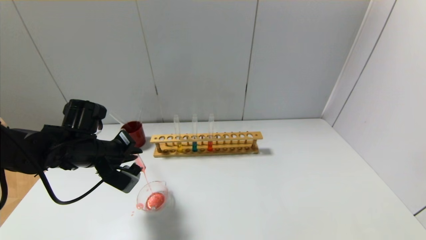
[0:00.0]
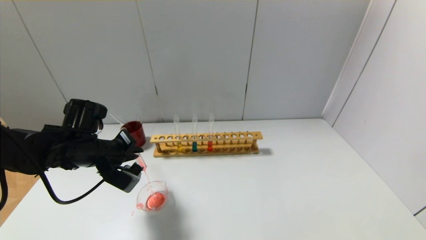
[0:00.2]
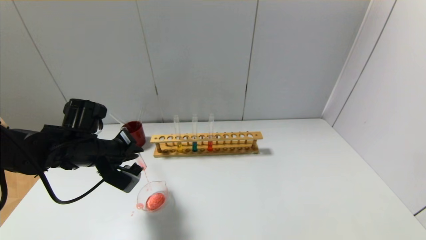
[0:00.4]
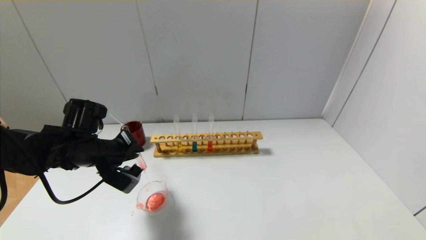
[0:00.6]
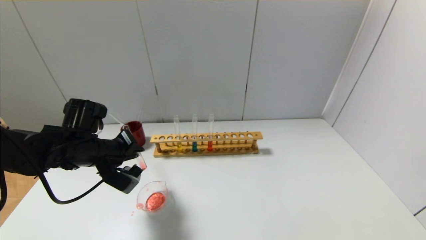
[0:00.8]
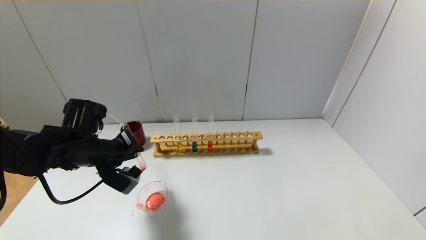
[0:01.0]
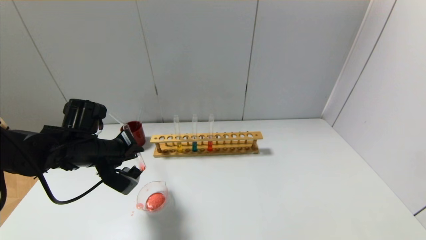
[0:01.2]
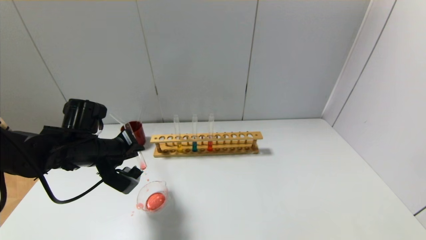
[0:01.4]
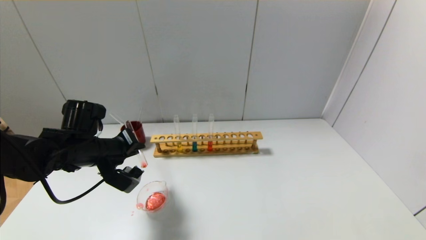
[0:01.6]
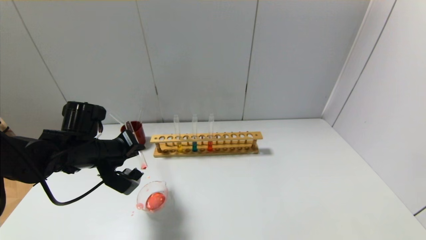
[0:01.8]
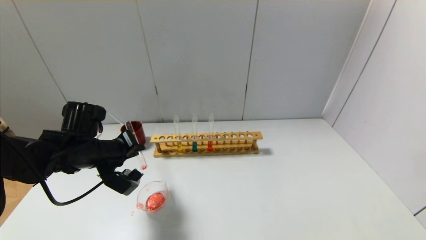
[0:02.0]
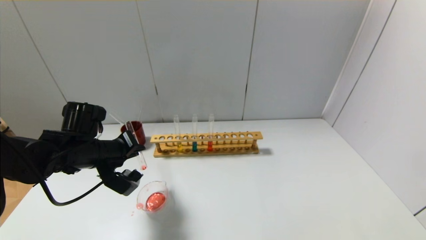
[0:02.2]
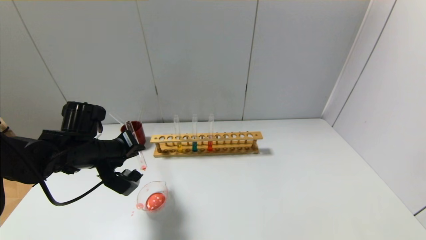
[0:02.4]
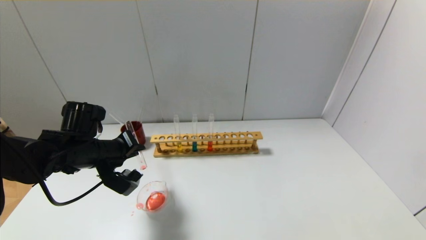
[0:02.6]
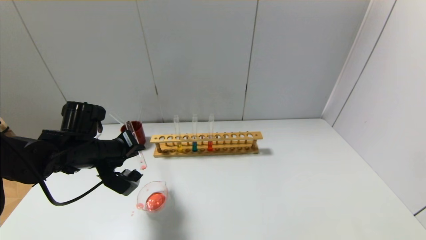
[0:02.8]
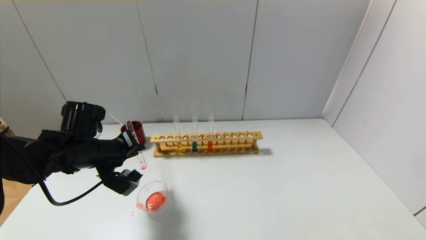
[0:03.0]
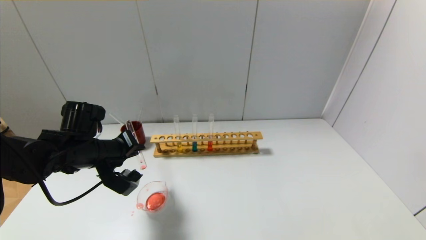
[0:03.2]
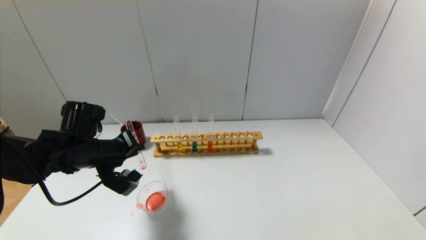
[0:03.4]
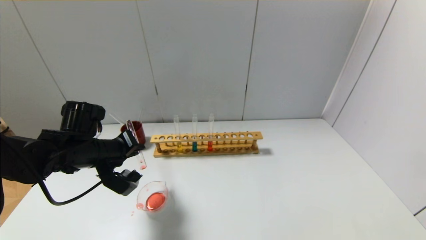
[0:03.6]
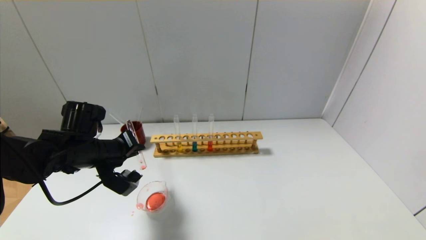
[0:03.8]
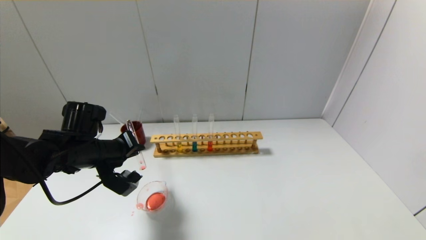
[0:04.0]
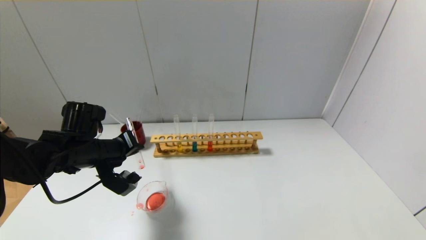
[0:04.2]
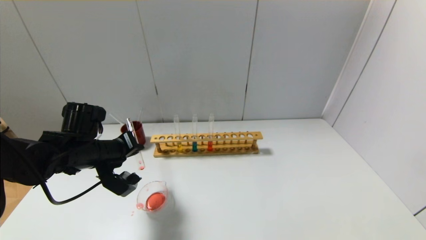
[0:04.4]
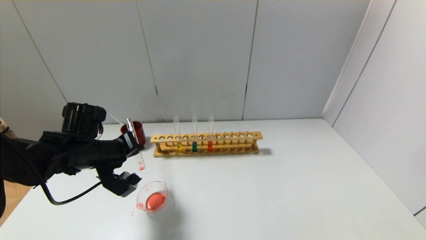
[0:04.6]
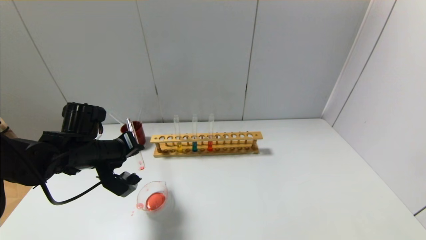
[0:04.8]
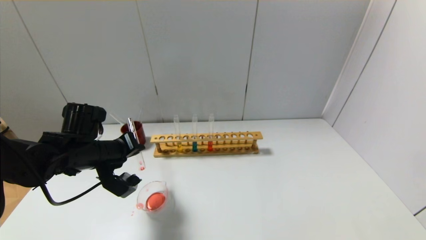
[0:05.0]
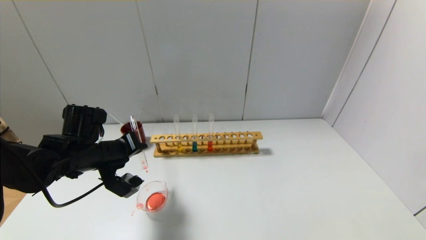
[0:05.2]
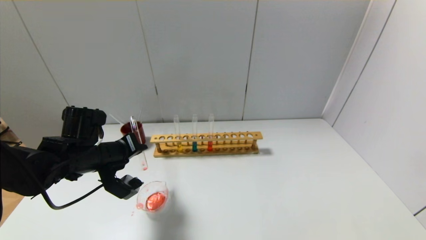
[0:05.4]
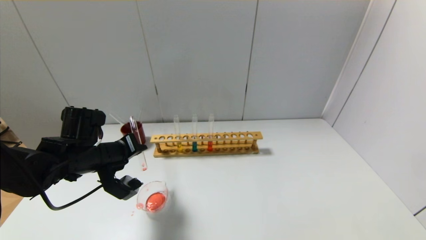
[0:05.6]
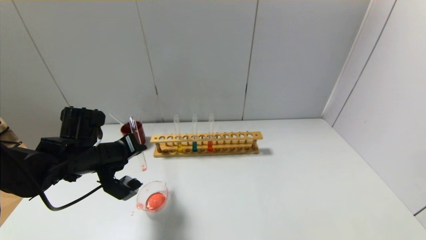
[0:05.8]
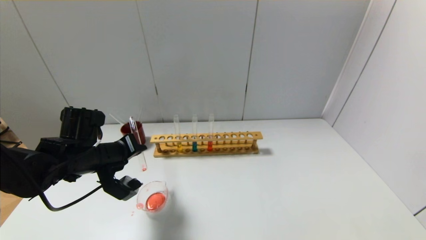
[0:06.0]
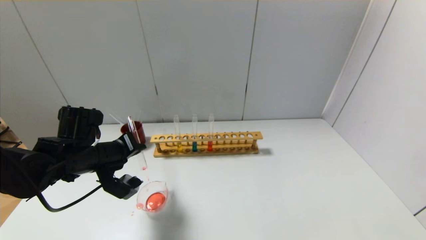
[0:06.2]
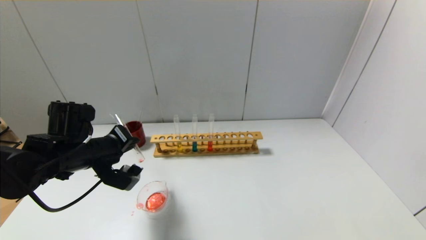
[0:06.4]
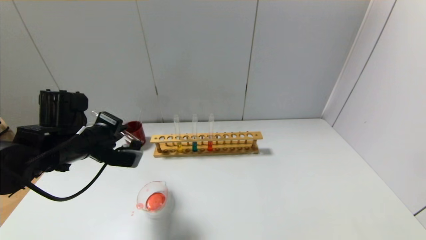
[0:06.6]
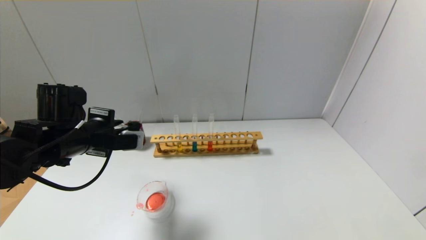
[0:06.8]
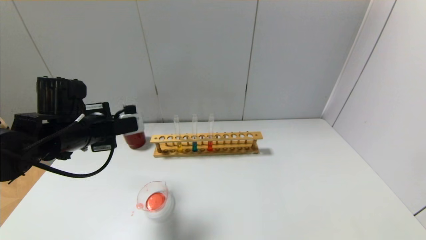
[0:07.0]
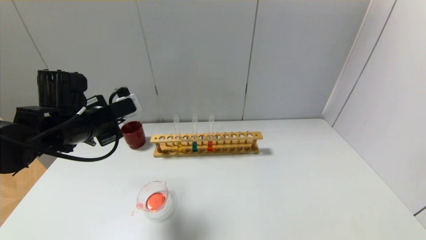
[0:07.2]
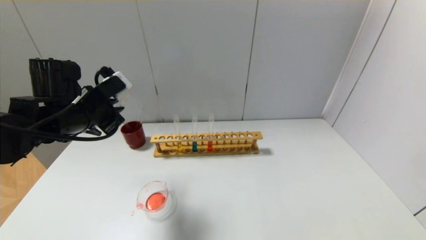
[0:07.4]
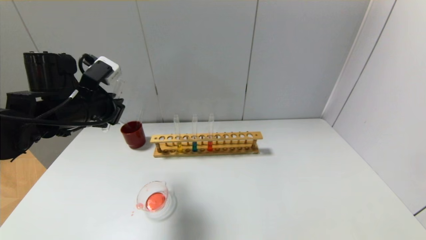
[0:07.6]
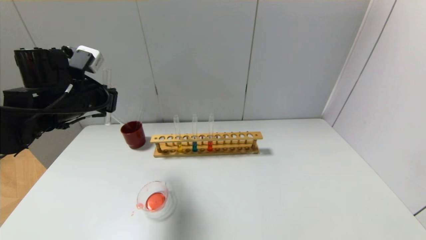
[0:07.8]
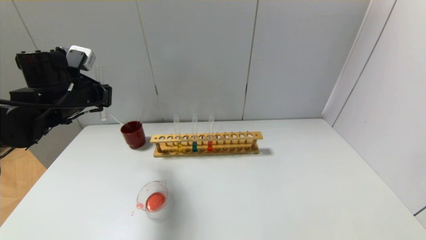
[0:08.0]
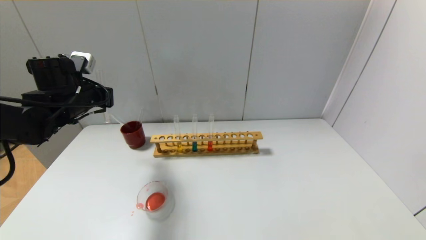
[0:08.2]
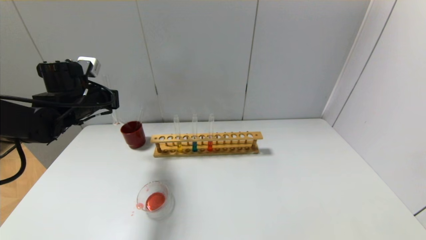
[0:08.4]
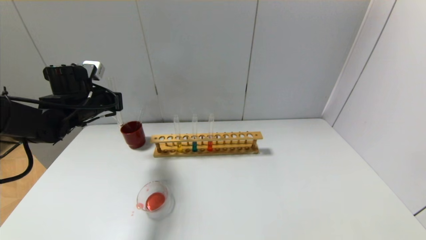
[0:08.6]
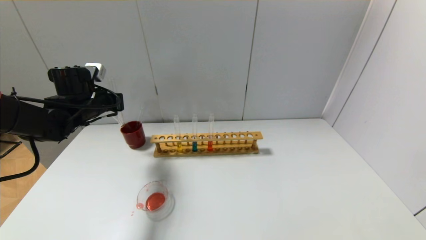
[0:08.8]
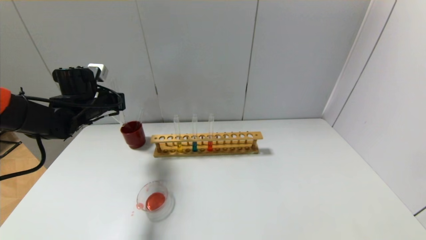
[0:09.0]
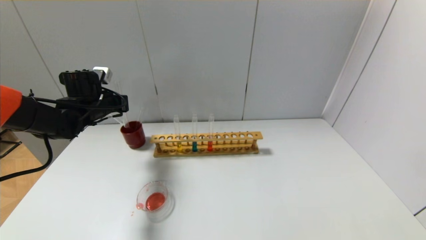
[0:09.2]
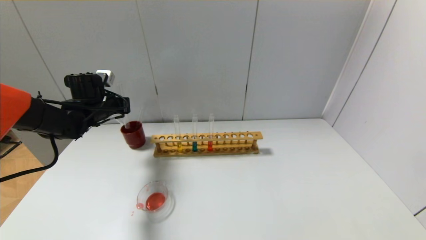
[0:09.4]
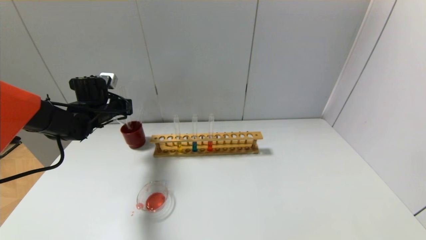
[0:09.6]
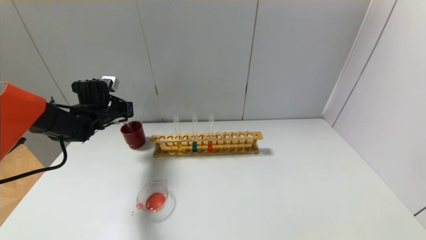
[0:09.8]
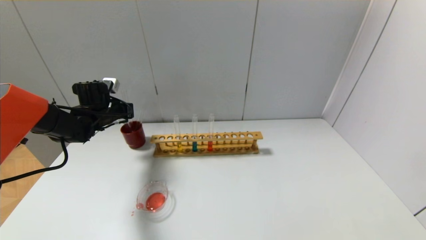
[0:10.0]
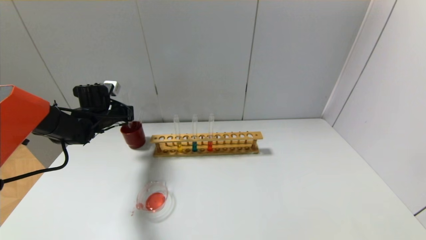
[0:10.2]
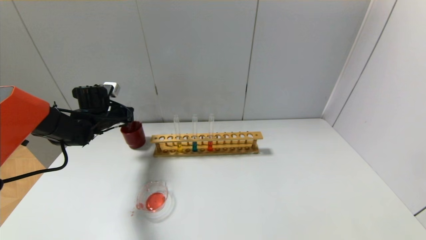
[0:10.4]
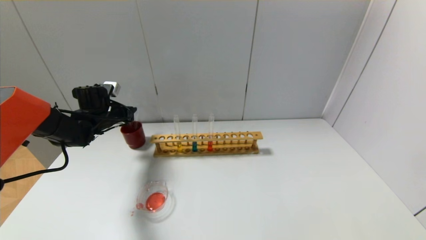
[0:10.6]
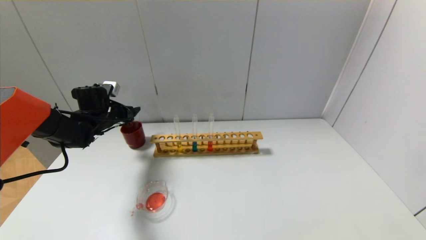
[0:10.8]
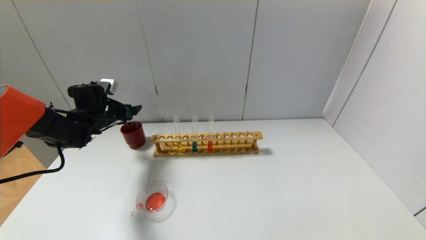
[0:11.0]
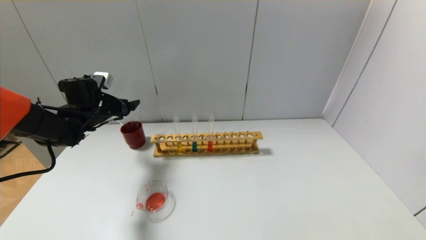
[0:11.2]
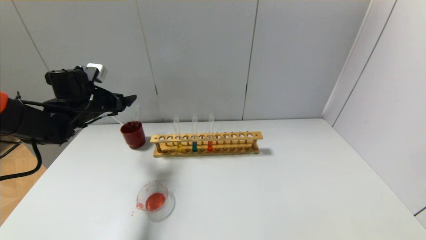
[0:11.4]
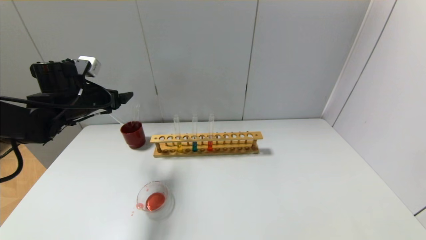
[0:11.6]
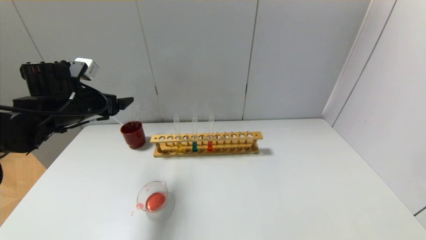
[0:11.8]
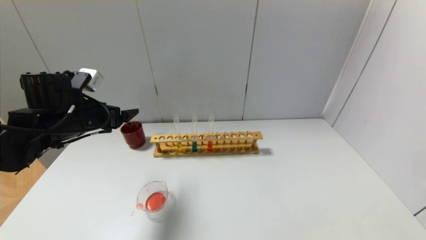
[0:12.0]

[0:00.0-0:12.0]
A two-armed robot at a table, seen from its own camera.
Step, 0:00.0 to 0:06.2: Pour the red reagent into the graduated cylinder with the left gripper.
Step, 0:06.4 to 0:10.6: Place the test tube into the brown cup with the left gripper.
0:00.0 to 0:01.6: There are only small adjustments of the grippers.
0:01.6 to 0:03.0: Neither gripper changes place.
0:03.0 to 0:04.4: The grippers move only a little.
0:04.4 to 0:06.0: Both grippers stay about where they are.
0:06.0 to 0:07.6: The left gripper is displaced upward by approximately 10 cm.
0:07.6 to 0:09.0: The left gripper is displaced forward and to the left by roughly 10 cm.
0:09.0 to 0:10.4: The left gripper heads downward, covering some 5 cm.
0:10.4 to 0:12.0: The left gripper shifts about 15 cm backward and upward, and opens up.

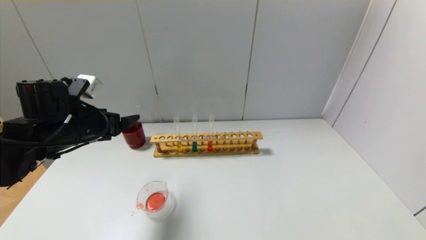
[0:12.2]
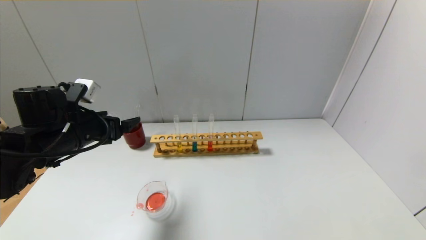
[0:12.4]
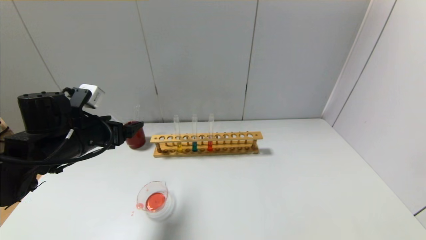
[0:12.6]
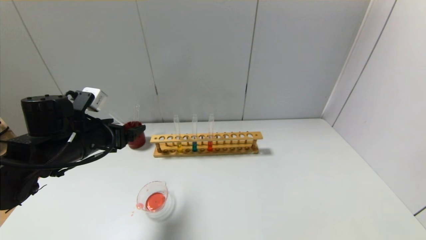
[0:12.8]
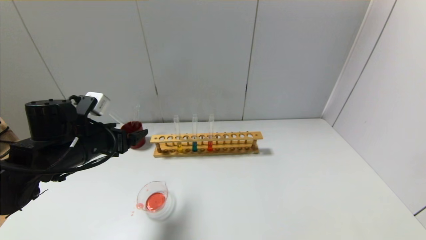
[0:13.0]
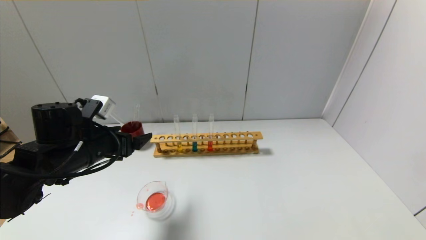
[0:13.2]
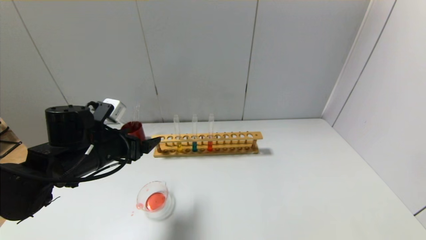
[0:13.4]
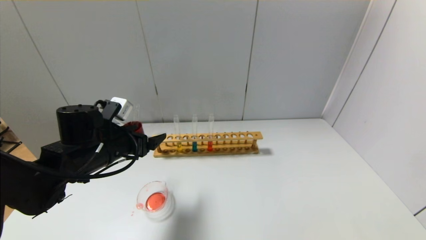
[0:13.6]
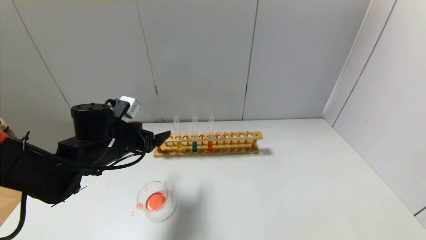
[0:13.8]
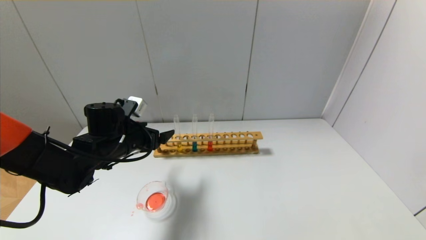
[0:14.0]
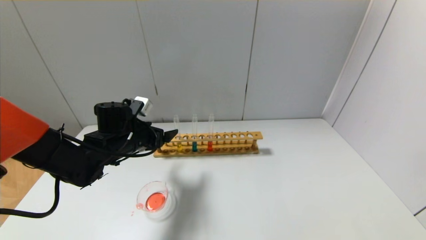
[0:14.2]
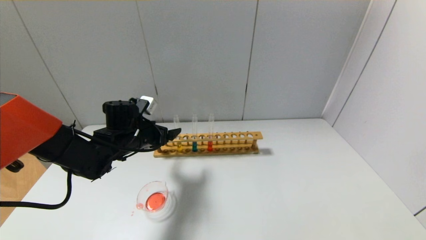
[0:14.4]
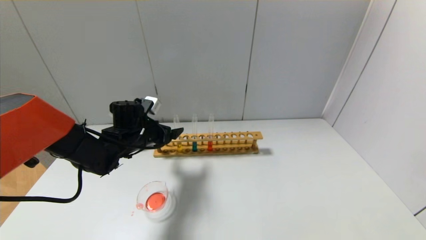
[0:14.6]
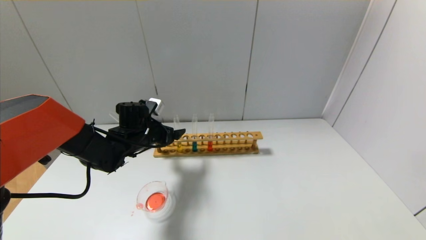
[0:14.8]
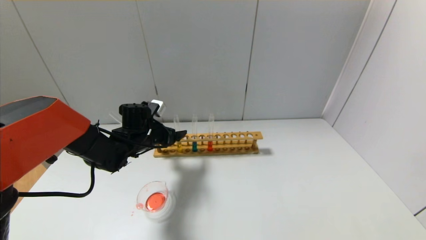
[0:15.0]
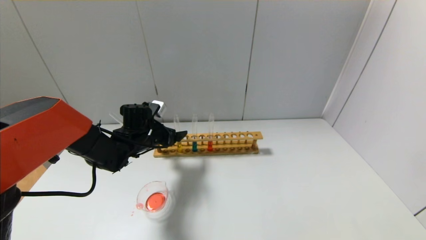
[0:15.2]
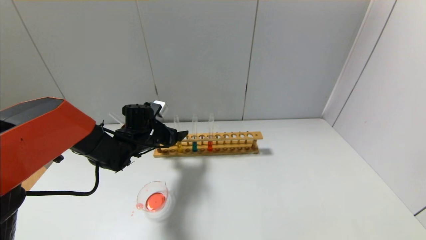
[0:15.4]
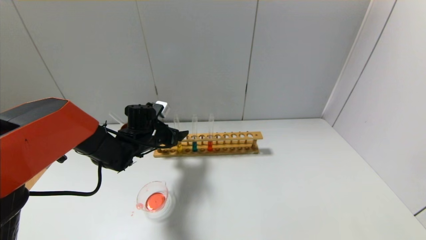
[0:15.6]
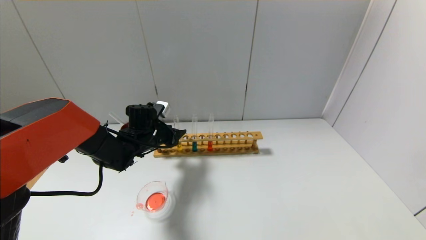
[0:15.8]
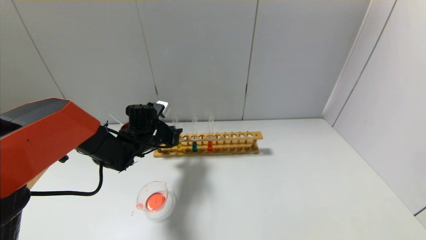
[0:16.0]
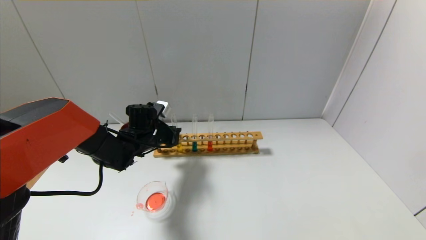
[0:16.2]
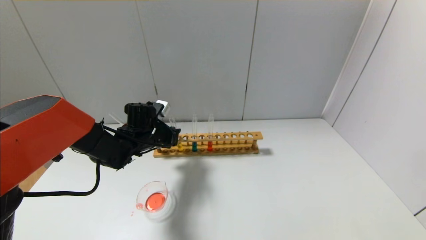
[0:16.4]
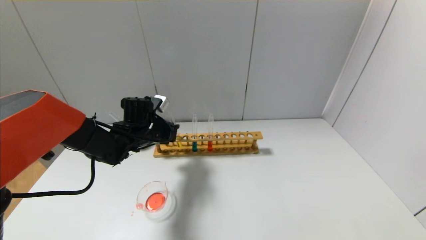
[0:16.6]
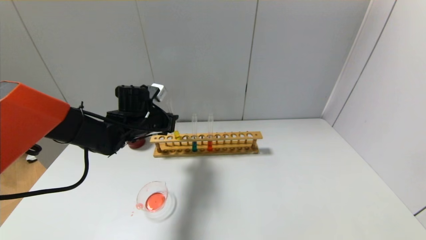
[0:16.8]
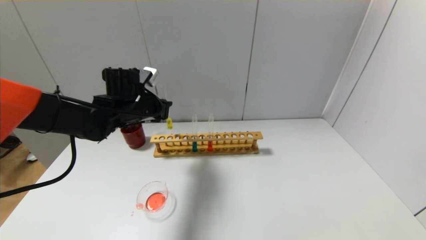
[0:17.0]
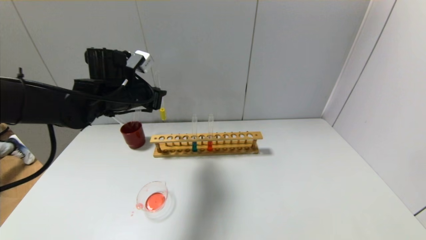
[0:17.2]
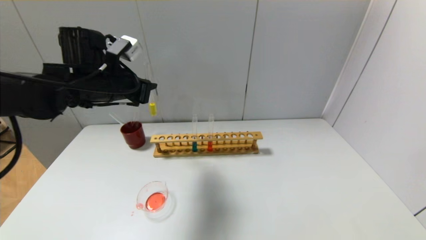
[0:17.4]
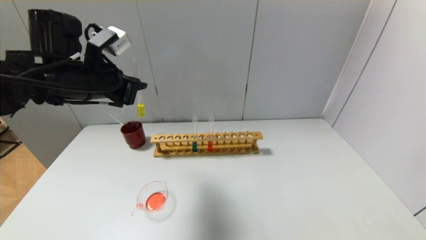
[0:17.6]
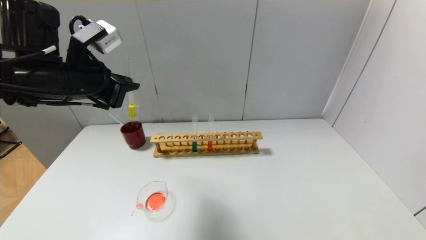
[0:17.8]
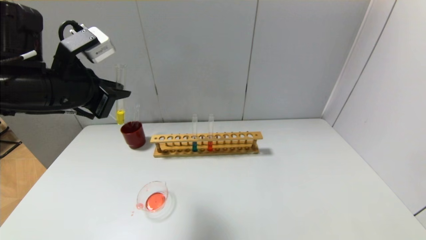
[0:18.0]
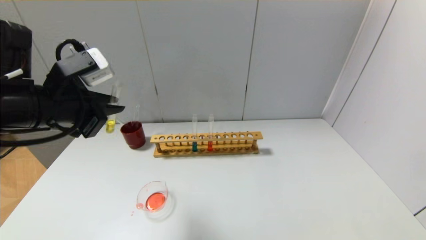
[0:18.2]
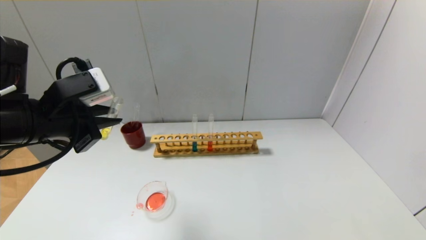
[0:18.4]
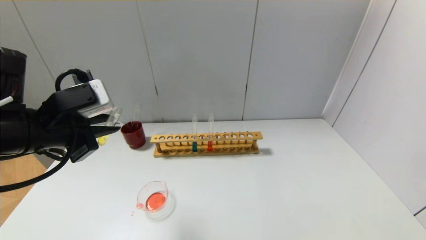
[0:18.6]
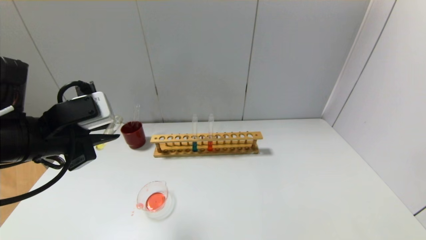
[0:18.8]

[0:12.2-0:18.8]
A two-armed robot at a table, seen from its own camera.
Step, 0:12.2 to 0:16.2: Grasp the yellow reagent with the left gripper.
0:12.2 to 0:13.8: The left gripper shifts some 10 cm to the right and downward.
0:13.8 to 0:15.4: The left gripper goes roughly 10 cm forward.
0:15.4 to 0:17.2: The left gripper travels upward by roughly 15 cm, and closes up.
0:17.2 to 0:18.8: The left gripper is displaced backward by approximately 15 cm.
